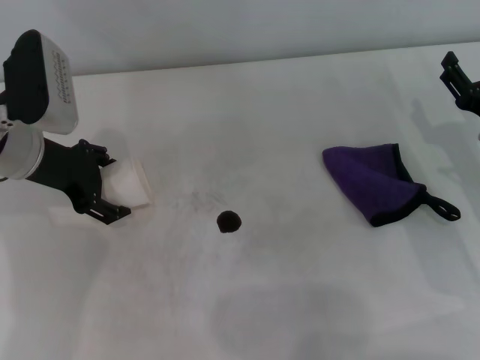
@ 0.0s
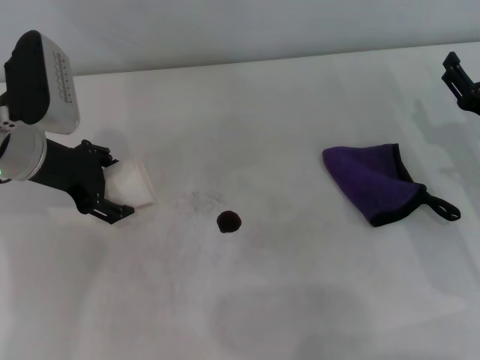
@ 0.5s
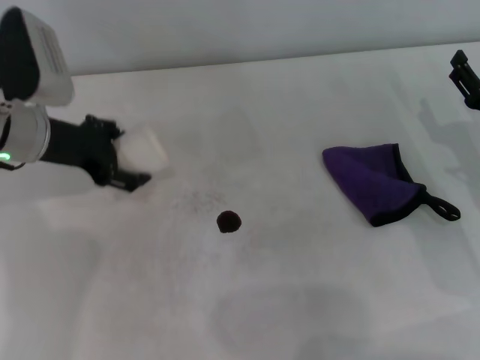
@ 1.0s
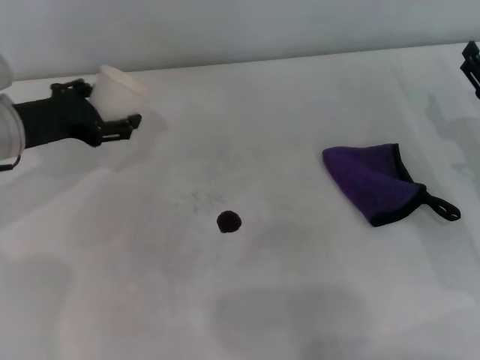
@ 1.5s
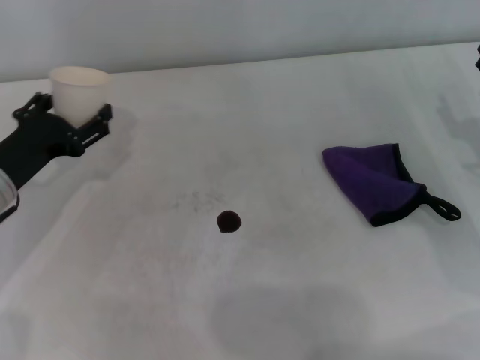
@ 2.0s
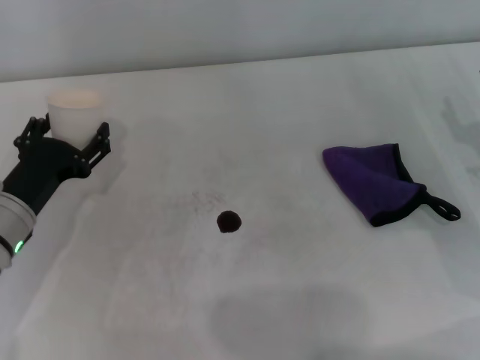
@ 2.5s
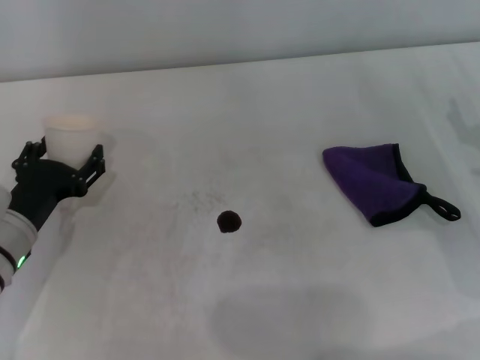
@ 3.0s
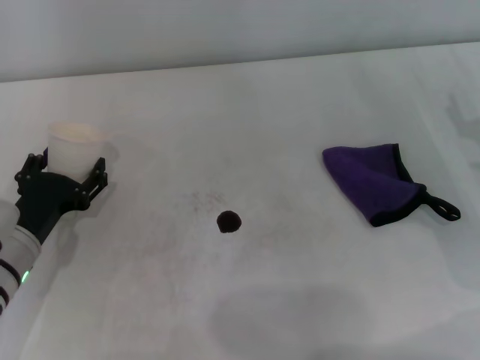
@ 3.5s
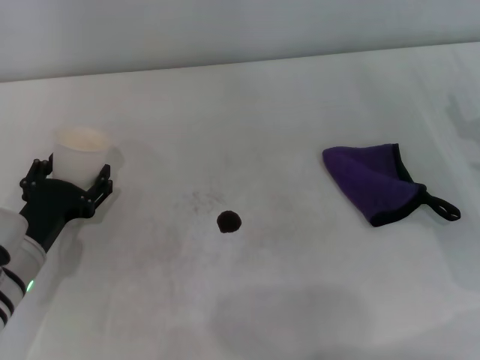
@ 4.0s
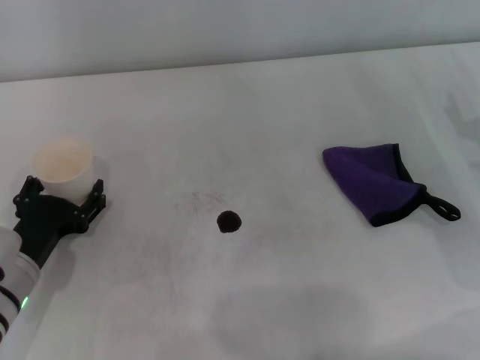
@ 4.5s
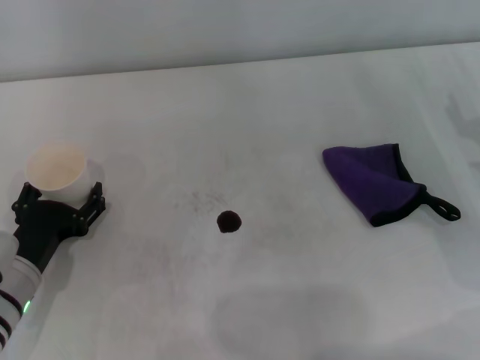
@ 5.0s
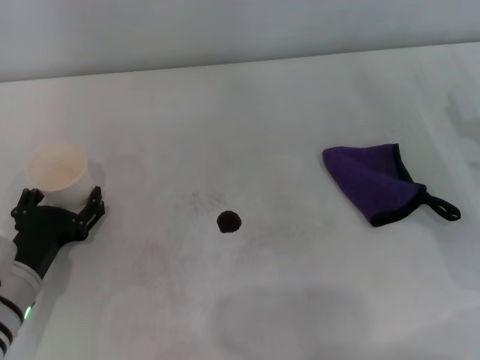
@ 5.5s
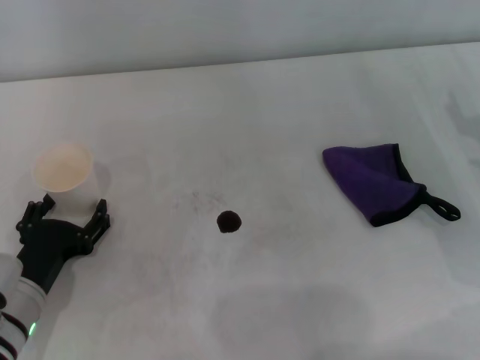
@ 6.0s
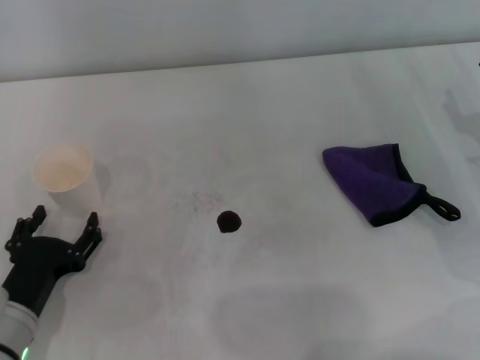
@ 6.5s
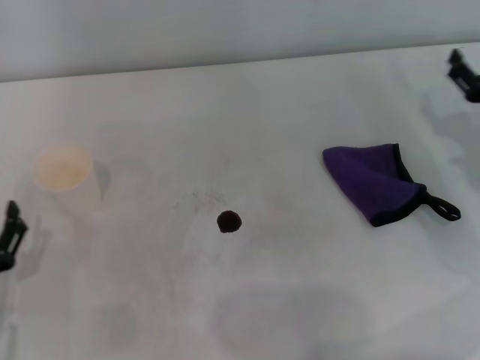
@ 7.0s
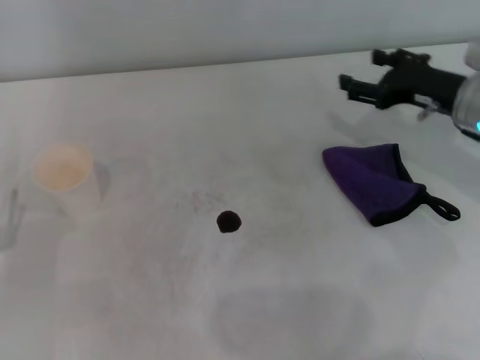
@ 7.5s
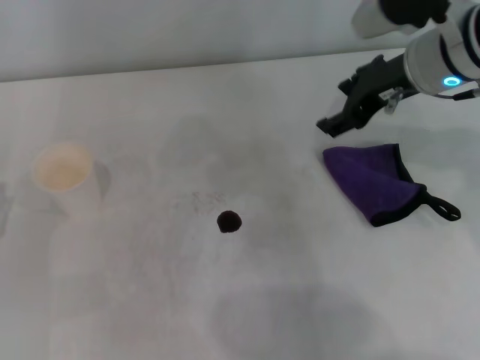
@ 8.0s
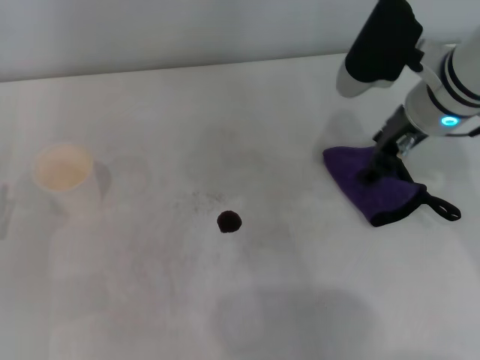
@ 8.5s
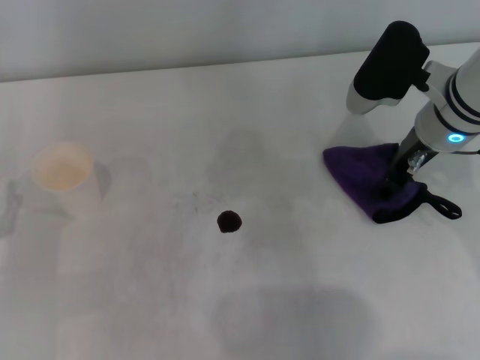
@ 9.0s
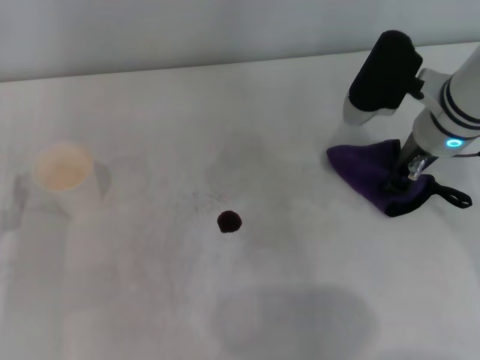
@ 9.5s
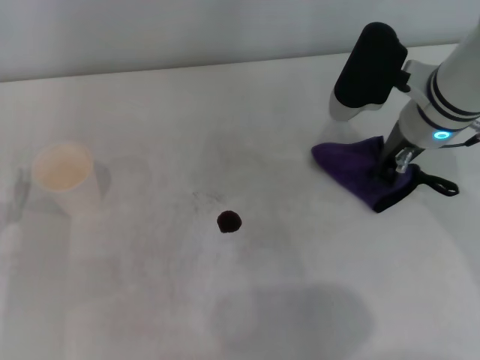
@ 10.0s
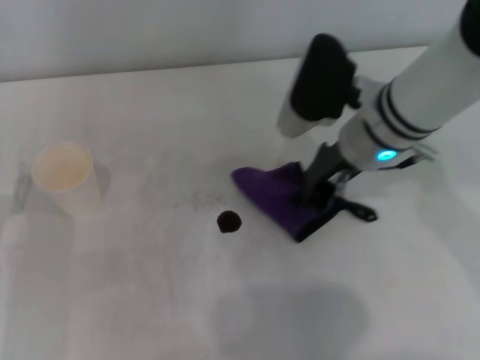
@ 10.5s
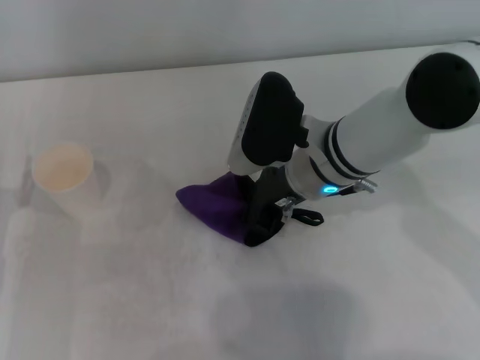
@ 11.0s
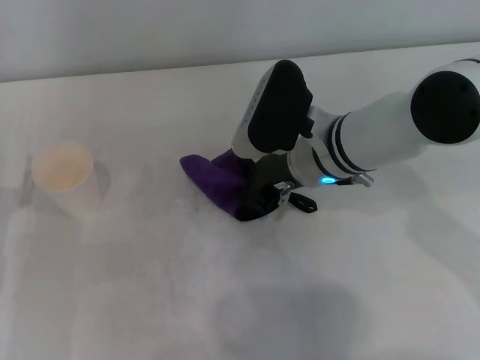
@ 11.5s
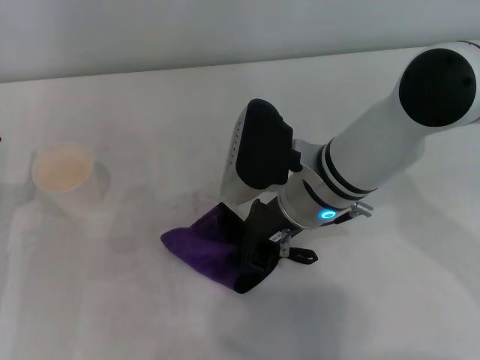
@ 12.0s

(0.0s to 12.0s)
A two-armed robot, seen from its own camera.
Step, 0.0s - 5.0s: Stand the paper cup upright with the left gripper.
Step, 5.5s - 9.5s: Grasp the rag with the right gripper.
0.0s - 2.0s: The left gripper goes some 10 cm downward and backward.
2.0s - 4.0s: The left gripper goes roughly 10 cm backward and downward.
4.0s - 6.0s: The grippers make only small movements.
6.0s - 8.0s: The left gripper heads to the left, covering approximately 10 cm. The right gripper goes about 20 cm to the left, upward and forward.
8.0s - 10.0s: The right gripper is displaced downward by approximately 5 cm, and closes up.
10.0s - 12.0s: The right gripper shifts roughly 10 cm to the left.

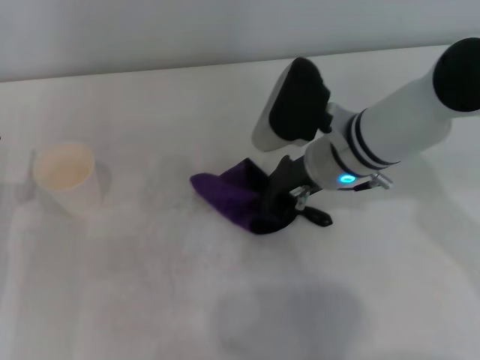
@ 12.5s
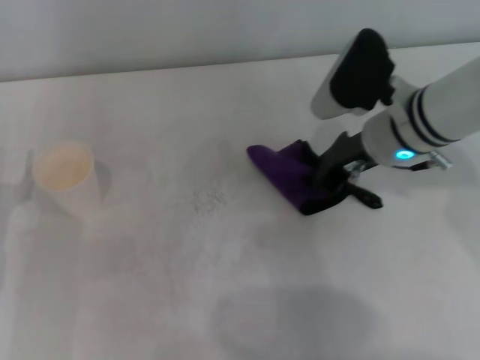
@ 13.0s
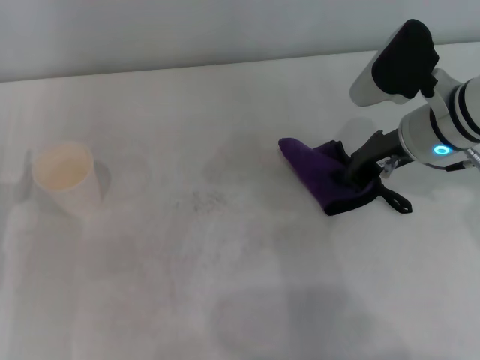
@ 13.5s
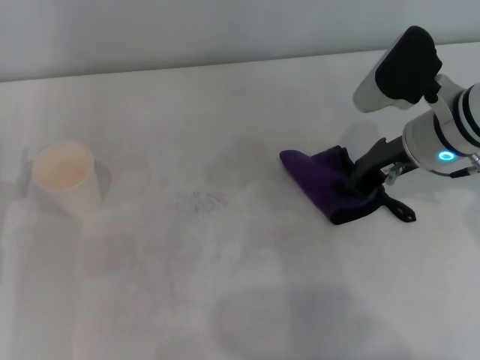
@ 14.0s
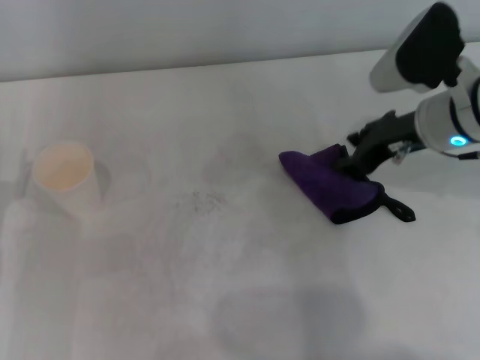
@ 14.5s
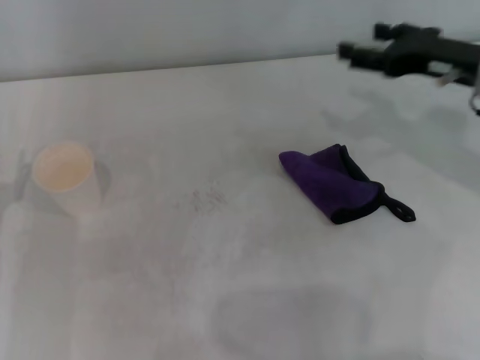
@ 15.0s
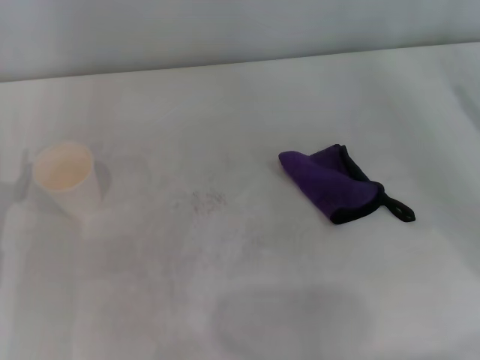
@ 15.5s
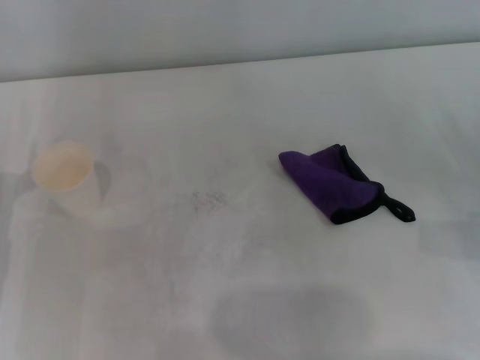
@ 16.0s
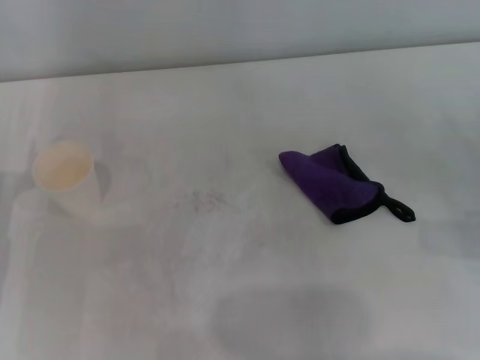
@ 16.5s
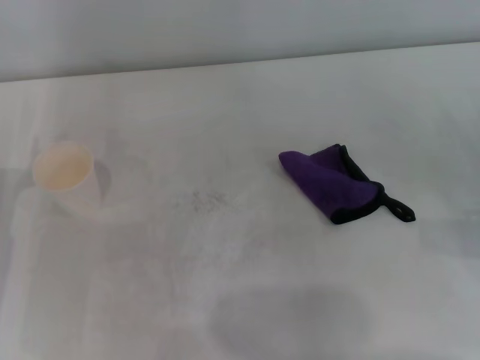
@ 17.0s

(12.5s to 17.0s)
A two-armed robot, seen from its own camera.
Step, 13.5s - 14.0s: Place the rag on the table with the right gripper.
12.5s - 14.5s: The right gripper moves to the right, some 10 cm, and opens.
14.5s - 17.0s: The right gripper is displaced to the right, backward and downward by approximately 20 cm, and opens.

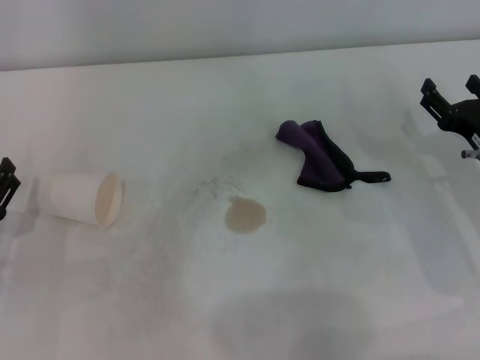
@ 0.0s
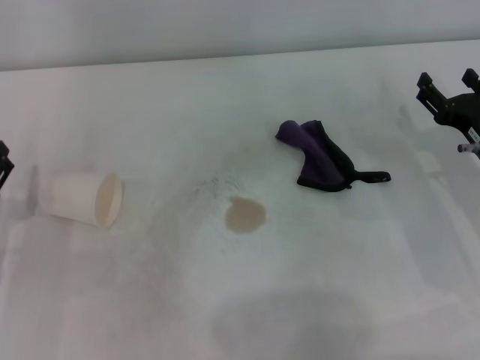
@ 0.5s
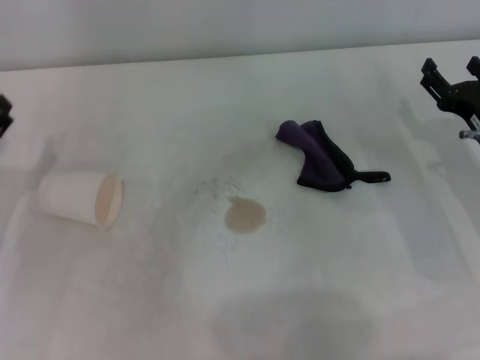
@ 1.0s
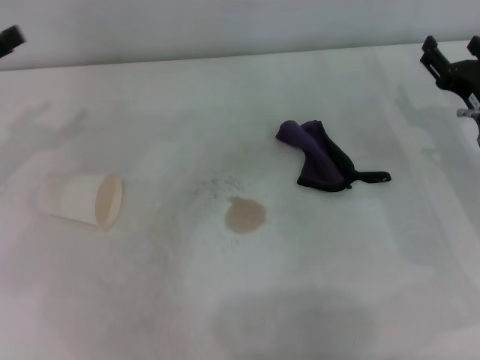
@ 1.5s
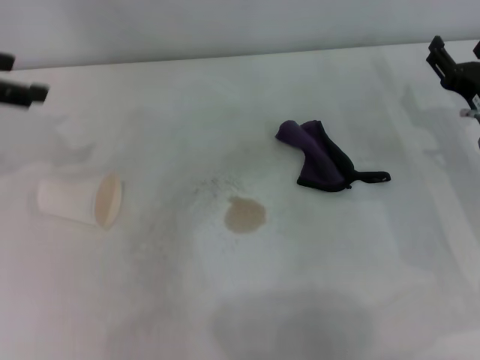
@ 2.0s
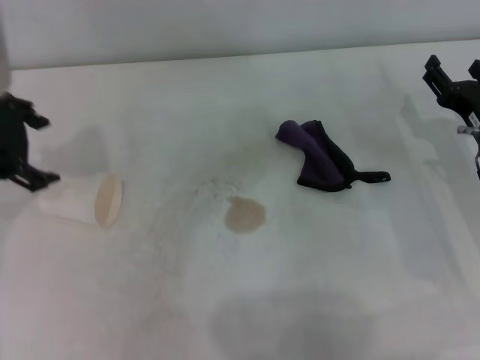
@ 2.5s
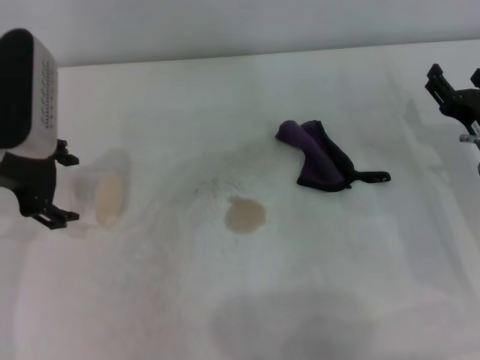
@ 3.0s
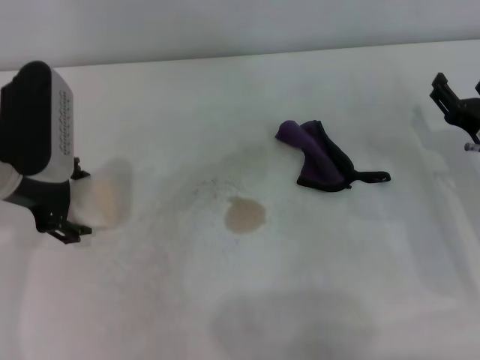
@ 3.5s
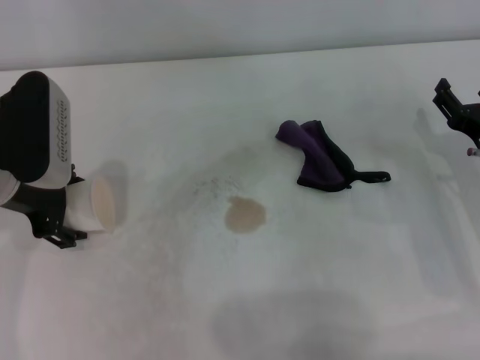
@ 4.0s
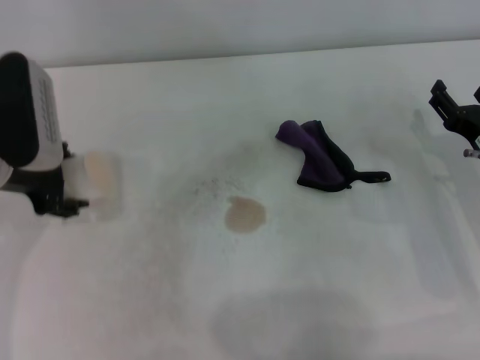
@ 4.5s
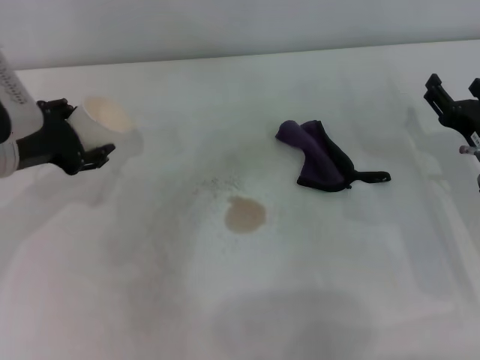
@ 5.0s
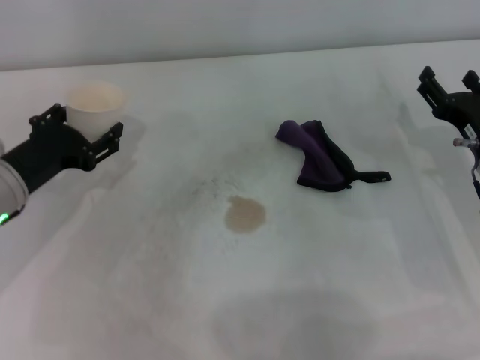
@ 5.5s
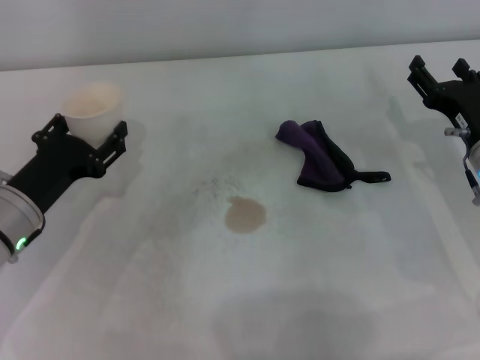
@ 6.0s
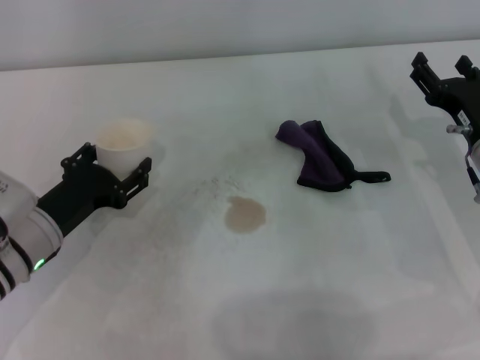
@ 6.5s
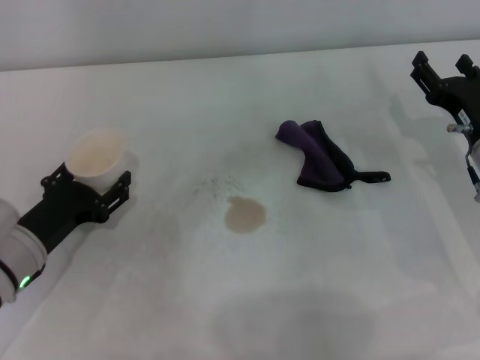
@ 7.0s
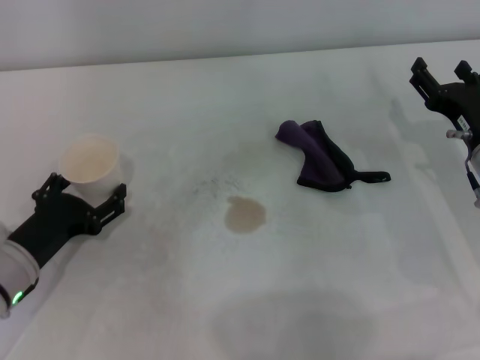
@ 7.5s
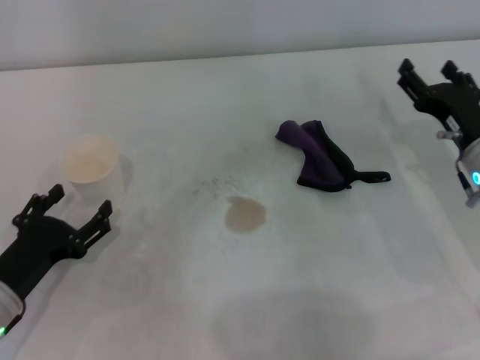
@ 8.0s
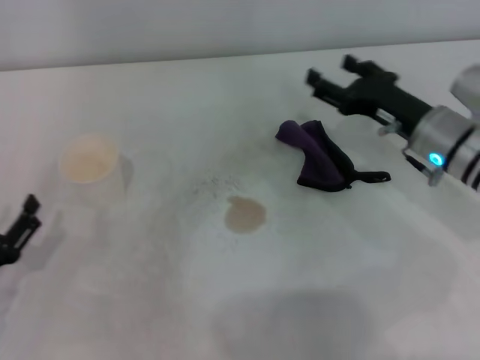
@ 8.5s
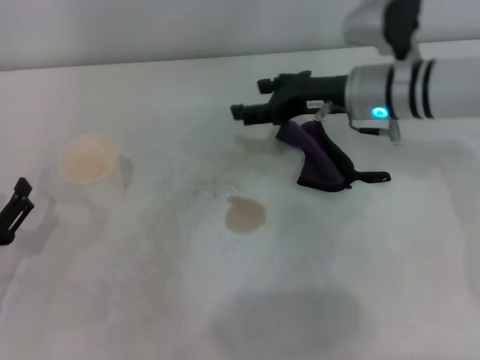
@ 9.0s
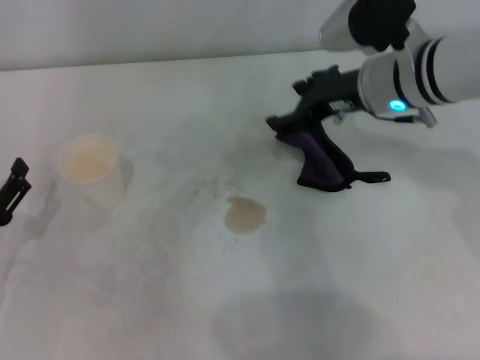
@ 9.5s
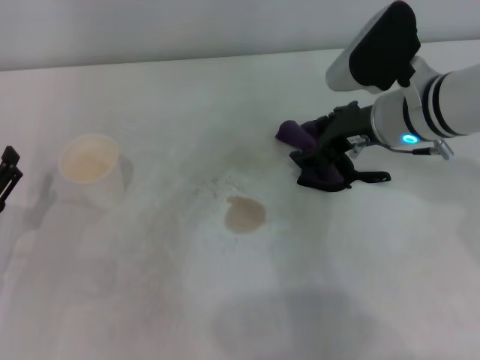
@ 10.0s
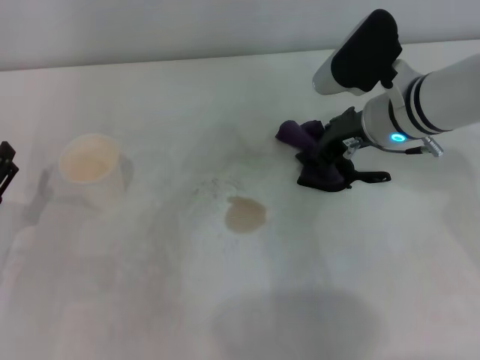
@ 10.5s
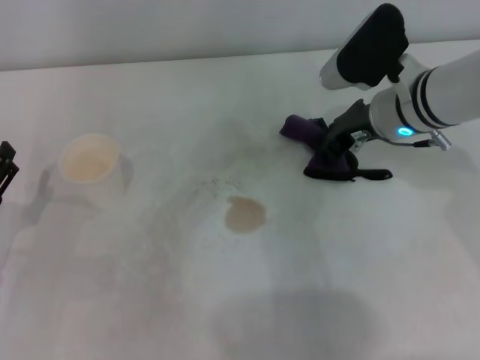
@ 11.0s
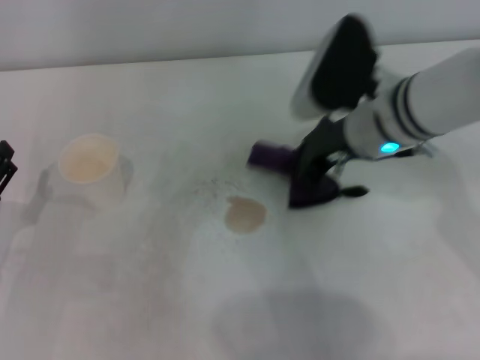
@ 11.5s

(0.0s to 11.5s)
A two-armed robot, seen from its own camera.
Step, 0.0s - 3.5s: Grasp the paper cup with the left gripper.
Step, 4.0s - 7.0s: Stand the paper cup upright with the left gripper.
Step, 7.5s - 10.5s: Grasp the rag with the right gripper.
0.0s - 2.0s: The left gripper travels upward and forward by approximately 25 cm.
2.0s - 4.0s: The left gripper shifts roughly 15 cm downward and to the right.
4.0s - 6.0s: The left gripper moves downward, roughly 10 cm, and closes.
6.0s - 7.5s: The left gripper changes place by approximately 5 cm, and opens.
7.5s - 9.5s: The left gripper heads to the left, covering roughly 5 cm. Meanwhile the right gripper heads upward, to the left and forward, covering some 15 cm.
9.5s - 11.5s: The right gripper closes its fingers.
